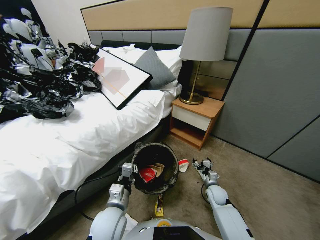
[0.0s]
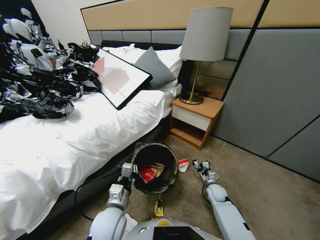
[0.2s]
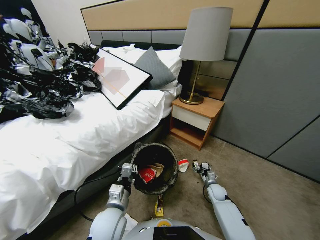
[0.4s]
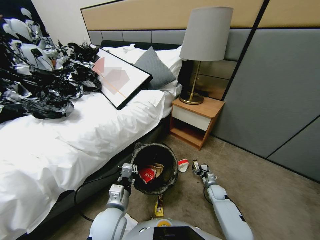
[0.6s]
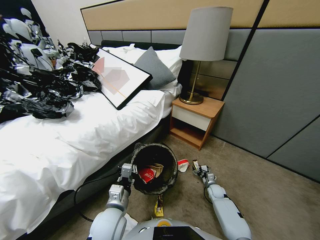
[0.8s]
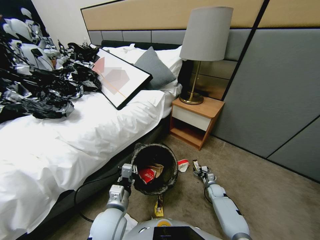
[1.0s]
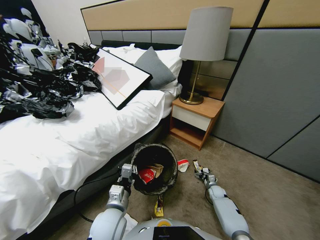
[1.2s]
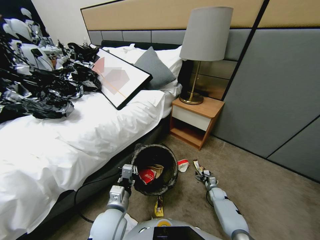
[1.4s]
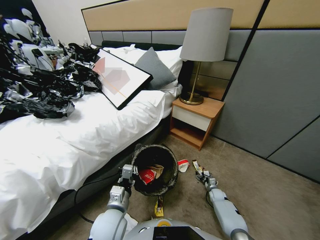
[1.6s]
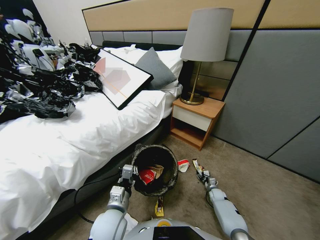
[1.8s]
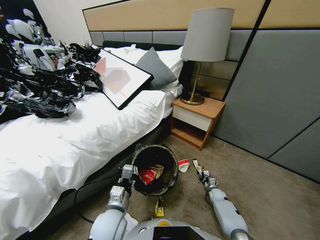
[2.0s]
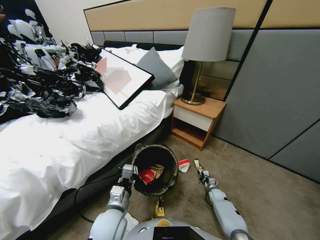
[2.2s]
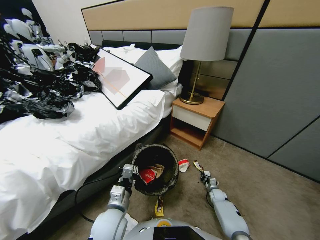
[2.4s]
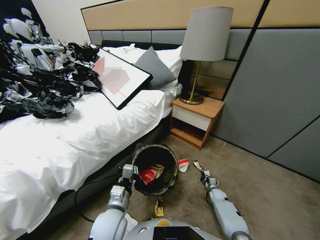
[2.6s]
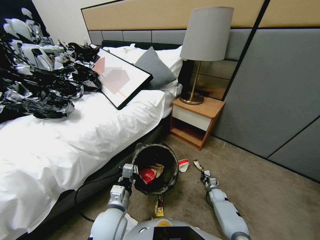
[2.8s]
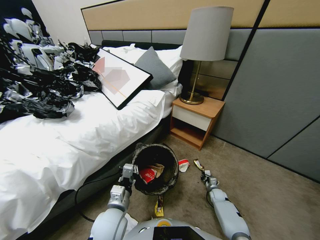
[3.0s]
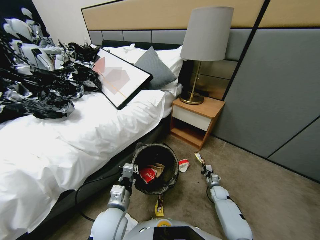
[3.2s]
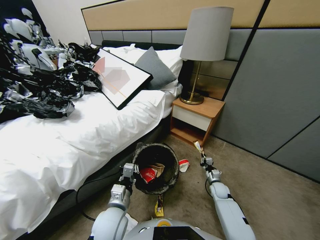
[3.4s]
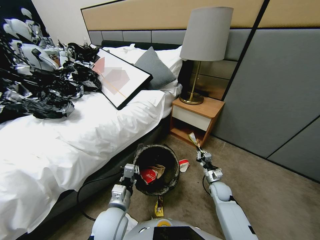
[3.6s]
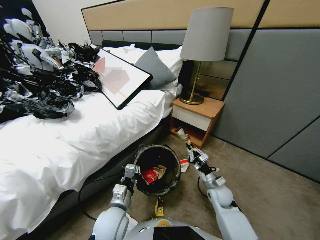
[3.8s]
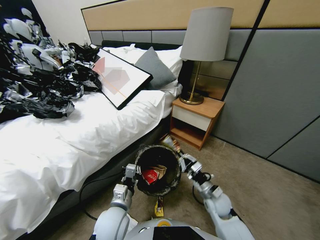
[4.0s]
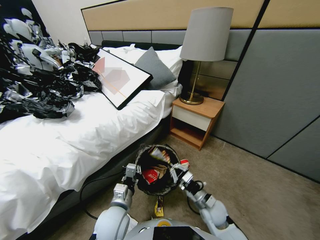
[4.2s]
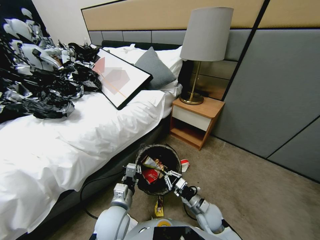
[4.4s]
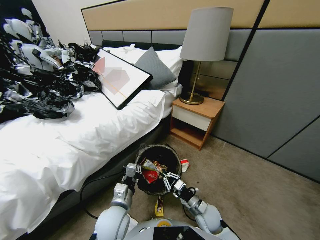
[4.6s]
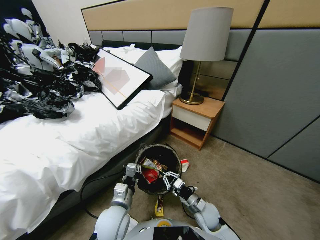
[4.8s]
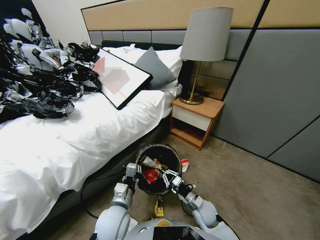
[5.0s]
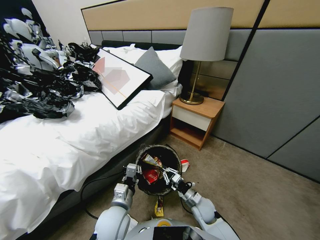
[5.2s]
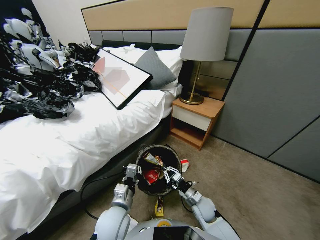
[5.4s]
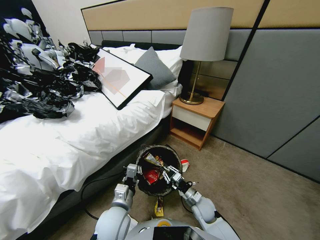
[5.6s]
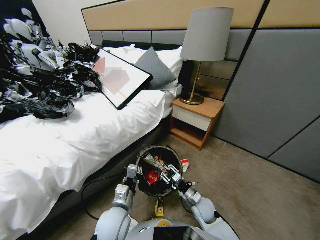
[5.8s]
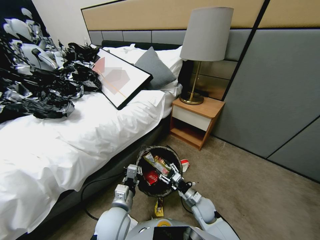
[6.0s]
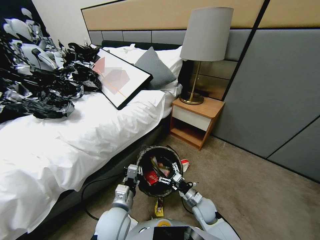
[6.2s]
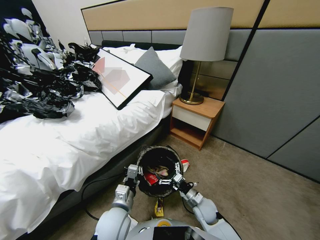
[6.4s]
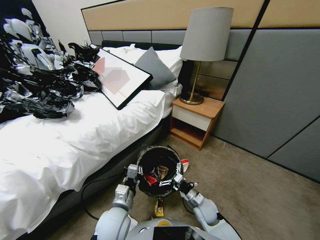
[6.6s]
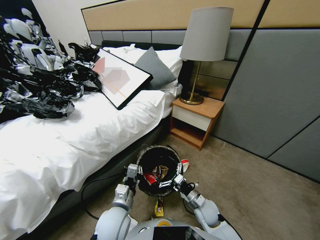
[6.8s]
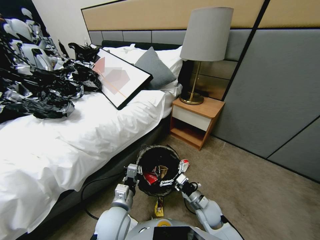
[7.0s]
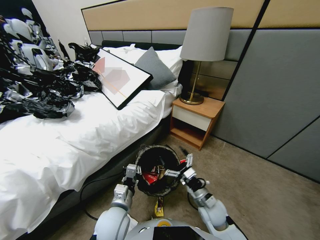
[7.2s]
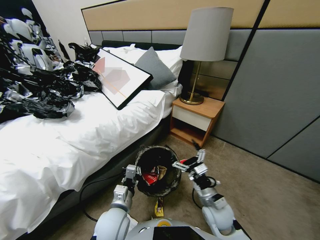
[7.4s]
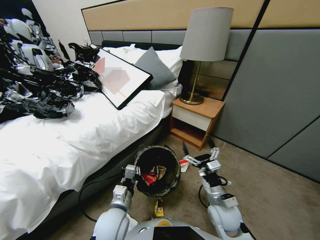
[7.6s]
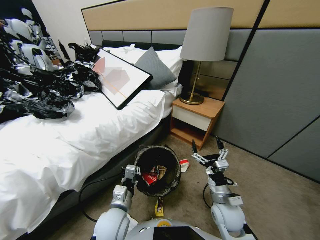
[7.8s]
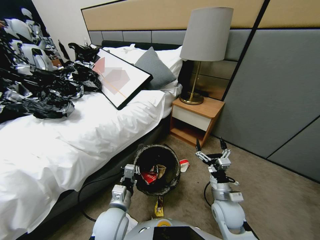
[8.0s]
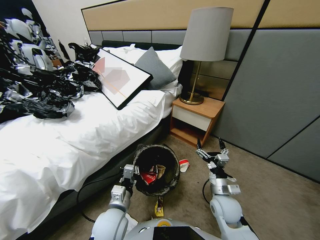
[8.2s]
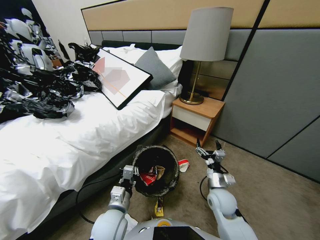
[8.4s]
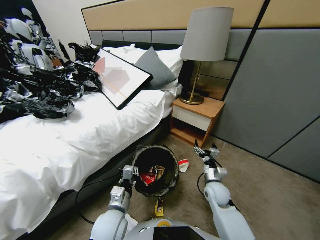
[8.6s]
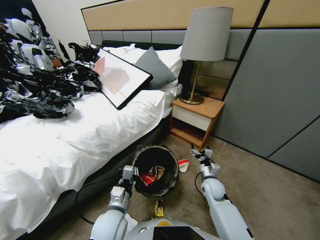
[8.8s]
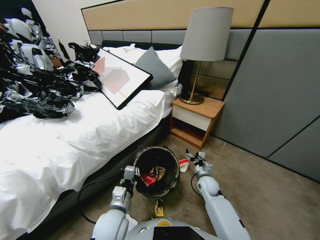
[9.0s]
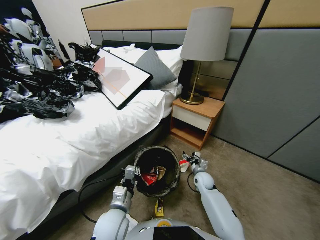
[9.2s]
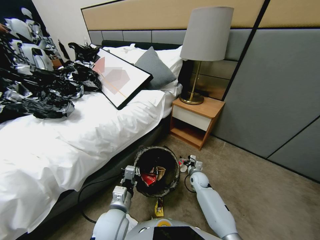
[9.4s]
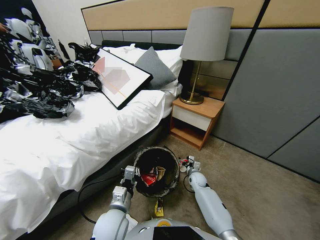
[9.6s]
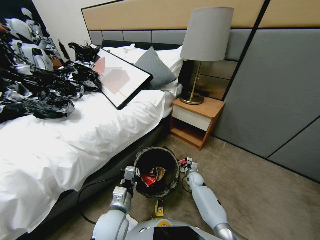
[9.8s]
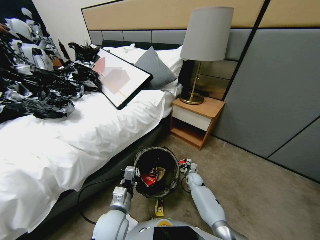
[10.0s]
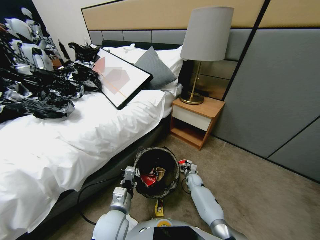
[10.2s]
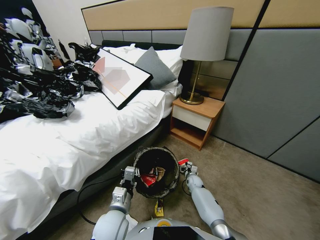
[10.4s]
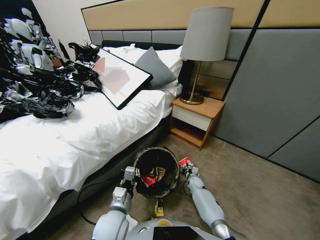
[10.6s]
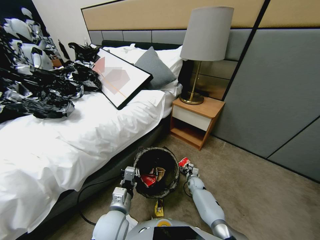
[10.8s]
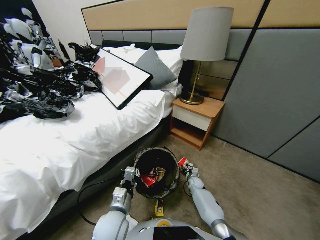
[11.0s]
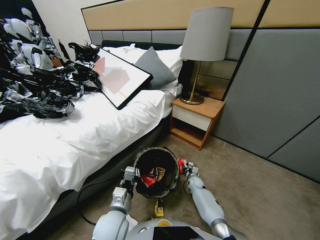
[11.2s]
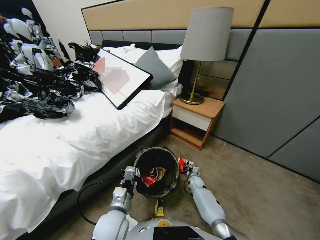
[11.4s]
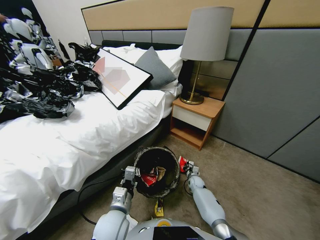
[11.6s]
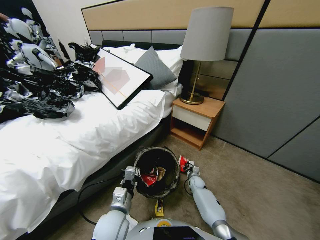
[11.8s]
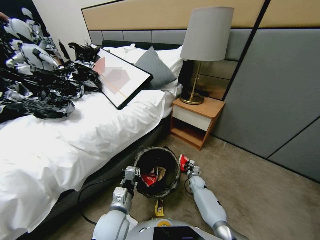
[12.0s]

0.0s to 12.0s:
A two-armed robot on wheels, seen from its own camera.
Task of the whole recording: Pick up the trash bin, then pick up the garbage from the floor and place it into the trash bin.
0.0s to 1.6s: The right gripper shifts about 15 cm downward and to the right.
1.6s to 3.0s: The right gripper closes.
3.0s to 4.4s: The right gripper travels to the left, upward and backward by approximately 25 cm.
4.4s to 6.0s: The right gripper opens its fingers.
6.0s to 7.6s: The right gripper shifts roughly 10 cm upward.
7.6s to 9.0s: The right gripper heads forward and downward, covering approximately 20 cm.
9.0s to 10.4s: The right gripper shifts some 15 cm downward.
10.4s to 12.0s: The right gripper closes.

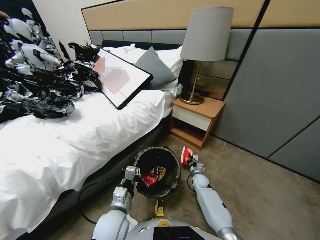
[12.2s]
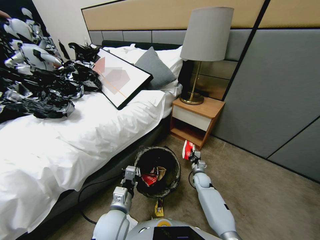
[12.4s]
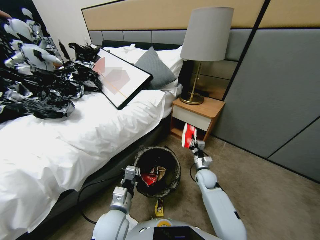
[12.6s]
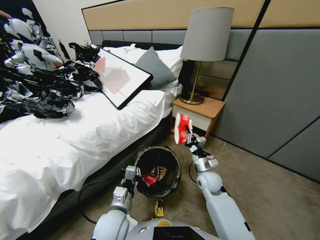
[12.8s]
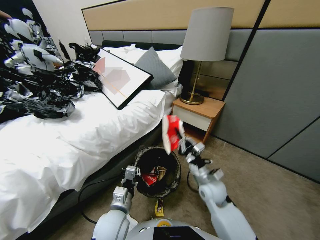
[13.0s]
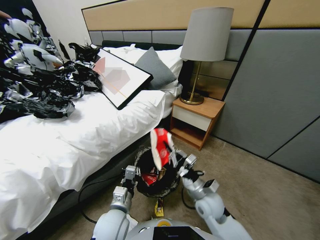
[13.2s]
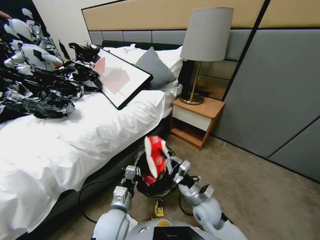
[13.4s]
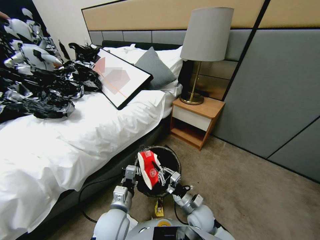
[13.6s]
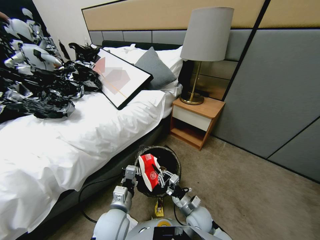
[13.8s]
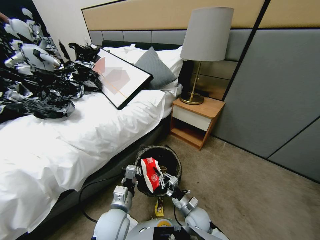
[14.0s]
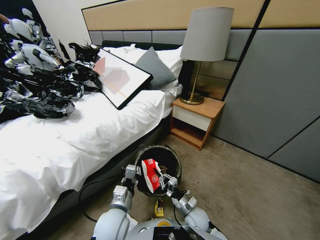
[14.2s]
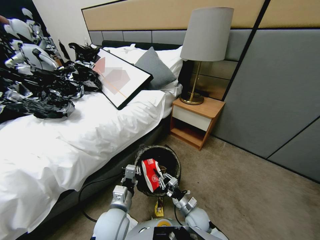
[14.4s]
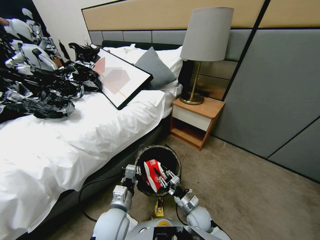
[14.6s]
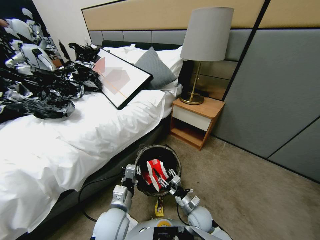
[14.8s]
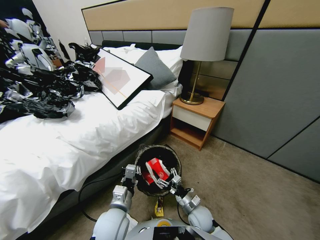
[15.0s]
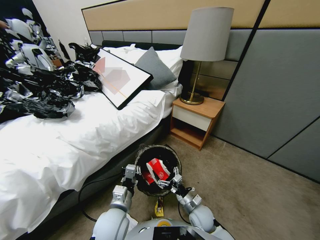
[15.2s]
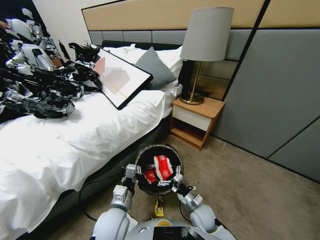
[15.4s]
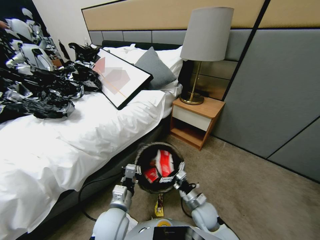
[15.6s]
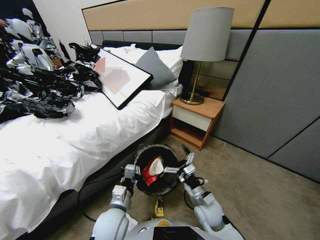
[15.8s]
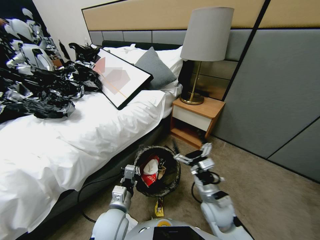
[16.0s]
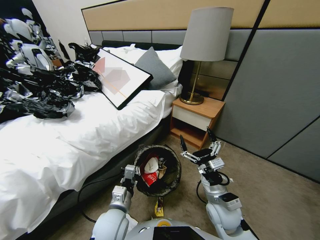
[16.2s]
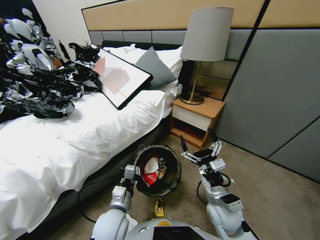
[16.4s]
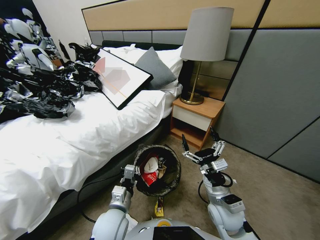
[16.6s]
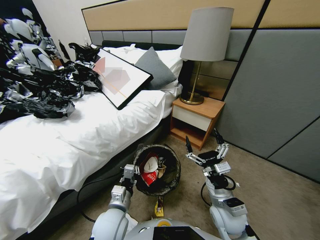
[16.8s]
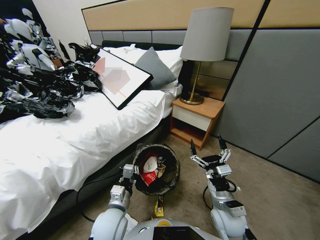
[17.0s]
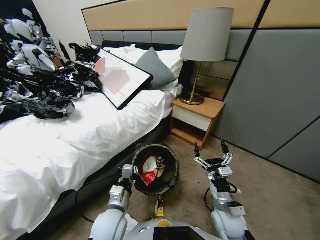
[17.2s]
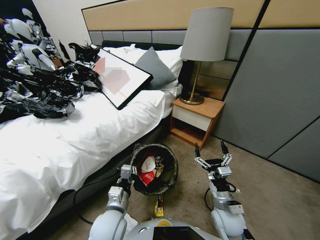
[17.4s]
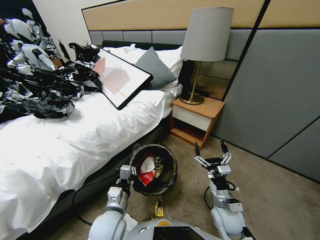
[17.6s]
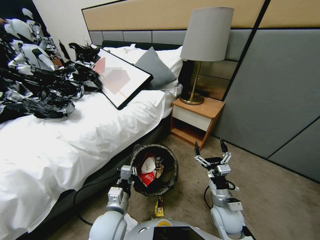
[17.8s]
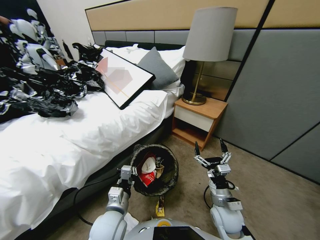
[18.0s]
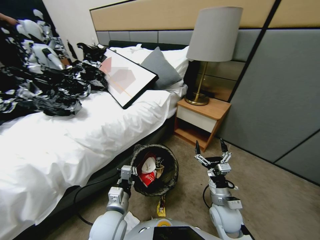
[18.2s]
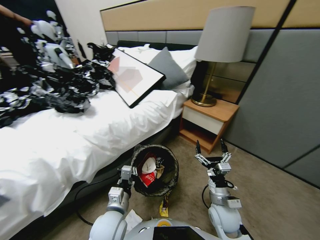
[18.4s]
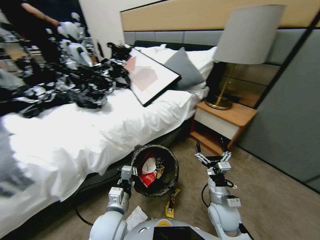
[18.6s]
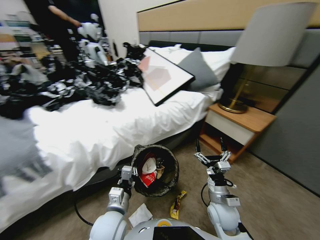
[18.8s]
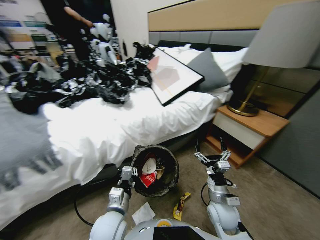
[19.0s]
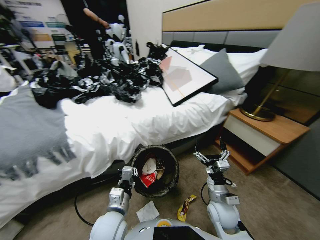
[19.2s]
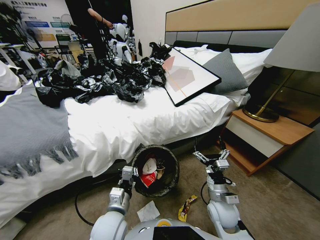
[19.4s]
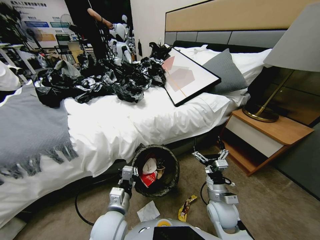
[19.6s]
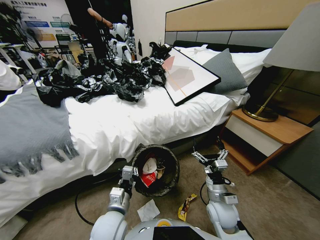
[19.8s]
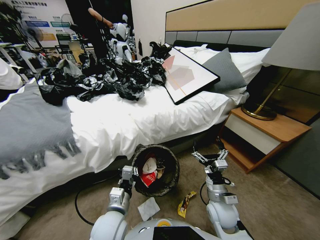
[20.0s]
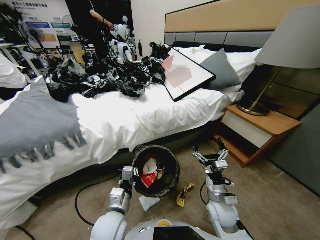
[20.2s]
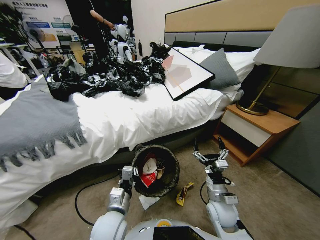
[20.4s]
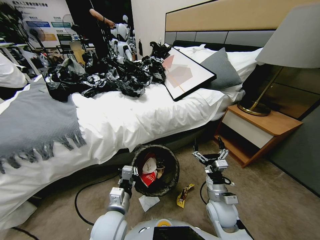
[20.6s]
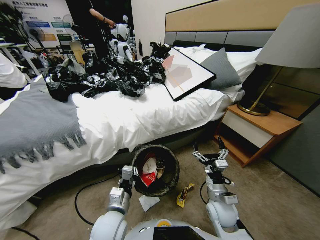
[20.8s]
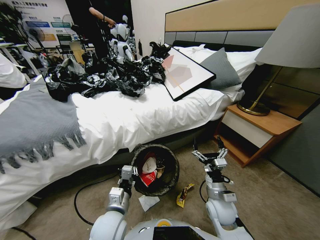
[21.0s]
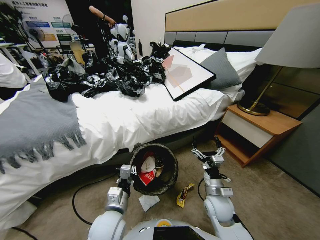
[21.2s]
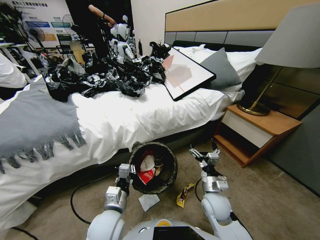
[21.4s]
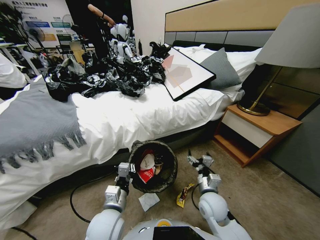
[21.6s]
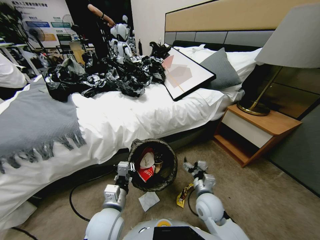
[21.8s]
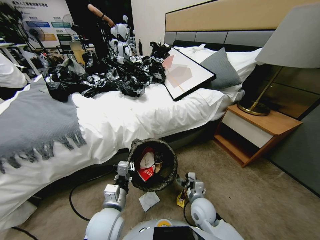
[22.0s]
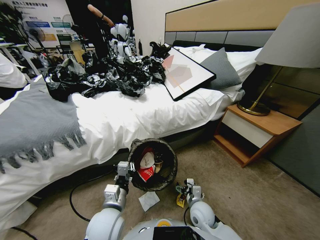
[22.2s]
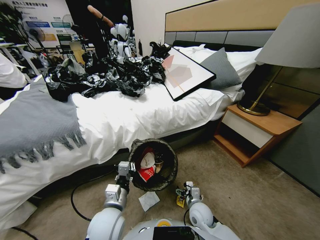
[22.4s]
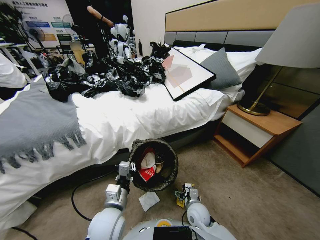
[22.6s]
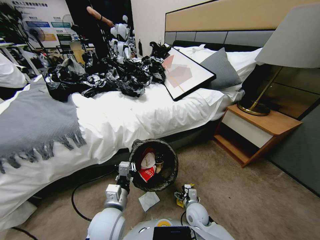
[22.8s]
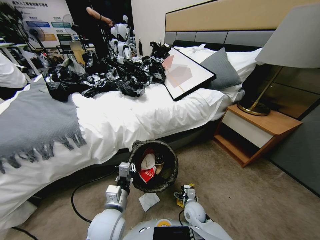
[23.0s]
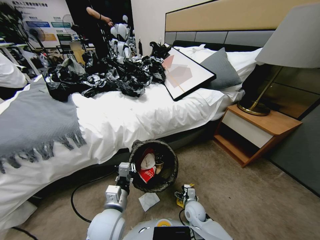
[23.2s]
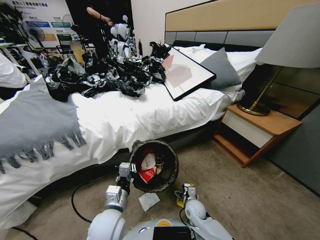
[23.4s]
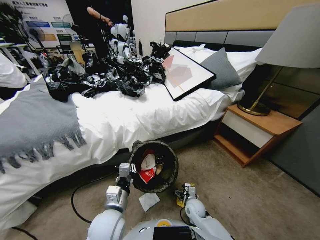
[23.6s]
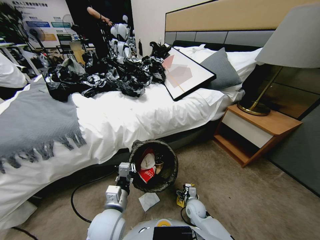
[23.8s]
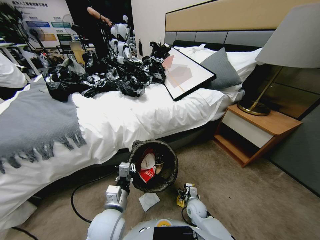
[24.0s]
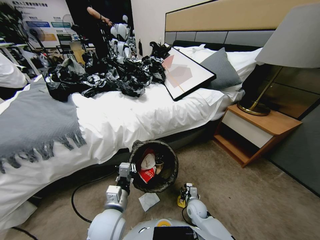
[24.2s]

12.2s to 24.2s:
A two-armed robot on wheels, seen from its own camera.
Task of the whole recording: Pick up the trash bin, then pick up the garbage from the floor and place it into the trash bin.
12.2s to 13.8s: The right gripper heads backward and to the left, covering roughly 20 cm.
13.8s to 15.2s: The right gripper opens its fingers.
15.2s to 16.6s: The right gripper goes approximately 15 cm upward.
16.6s to 18.2s: The right gripper goes about 5 cm downward.
21.2s to 22.6s: The right gripper heads downward, covering about 10 cm.
22.6s to 24.2s: The right gripper moves downward, about 5 cm, and closes up.
